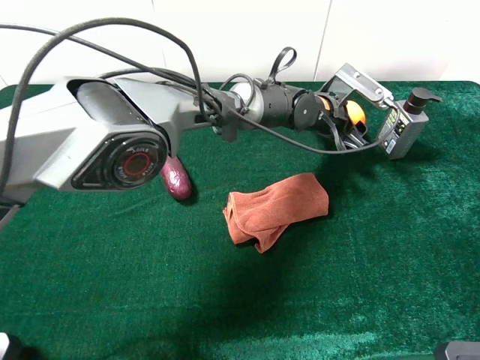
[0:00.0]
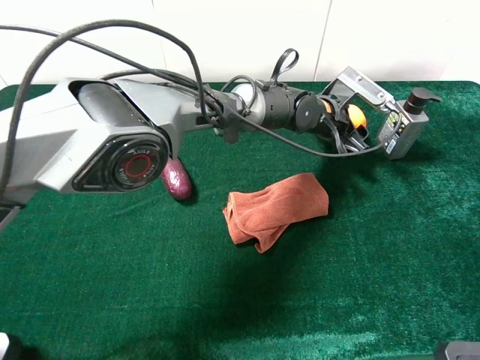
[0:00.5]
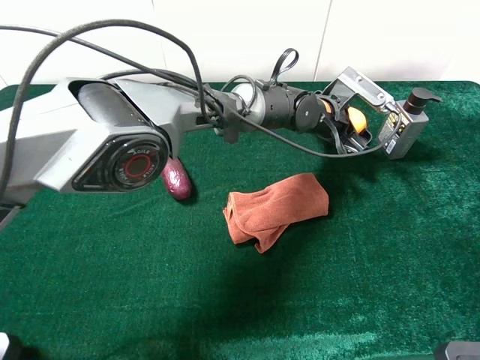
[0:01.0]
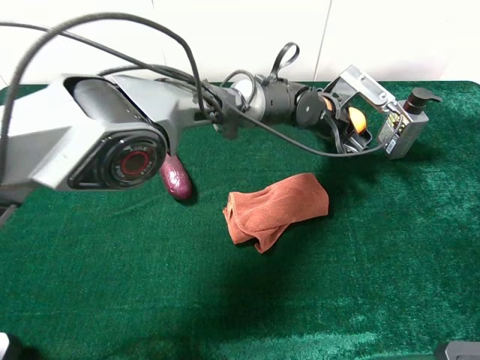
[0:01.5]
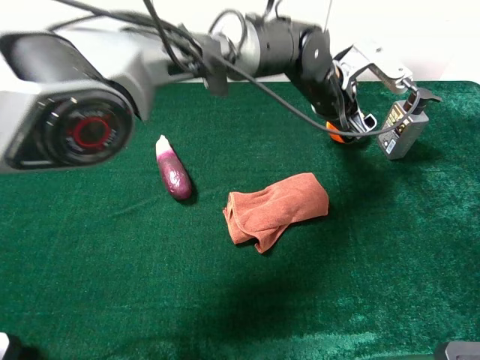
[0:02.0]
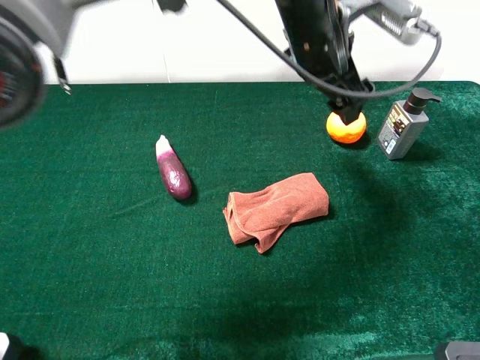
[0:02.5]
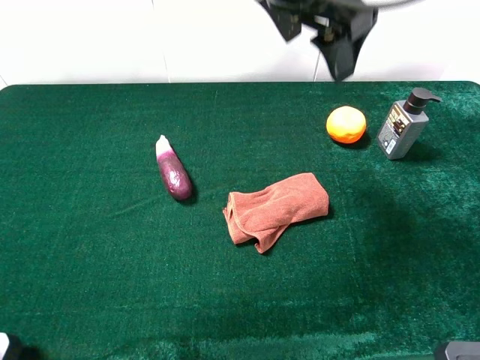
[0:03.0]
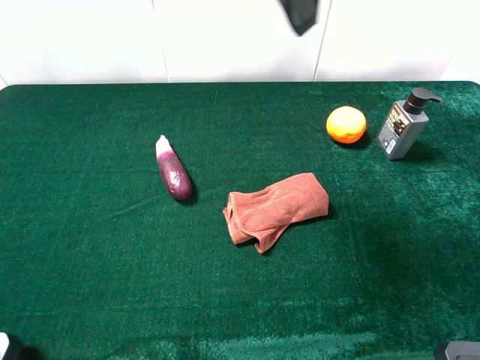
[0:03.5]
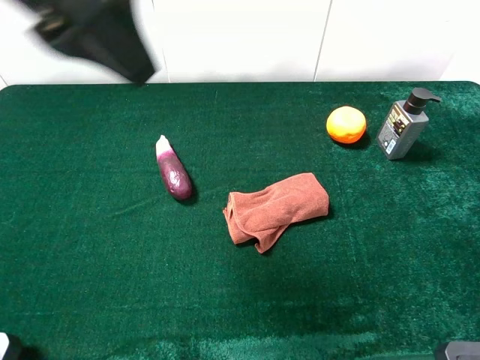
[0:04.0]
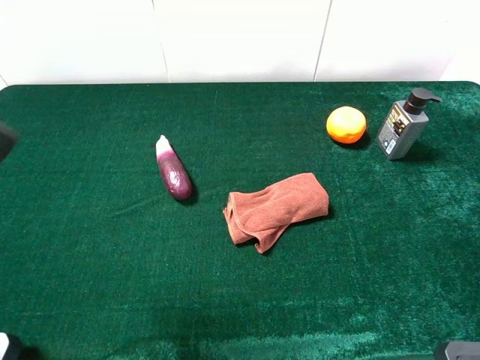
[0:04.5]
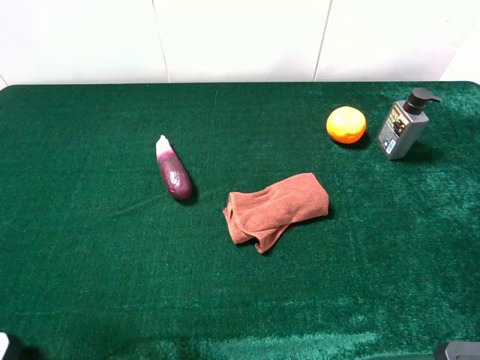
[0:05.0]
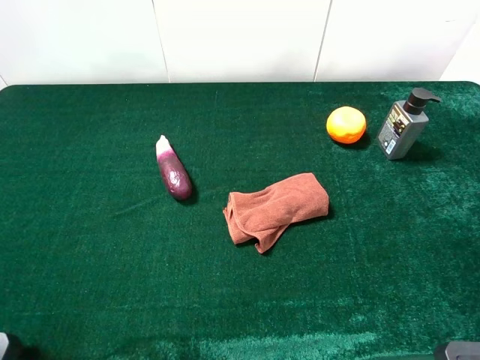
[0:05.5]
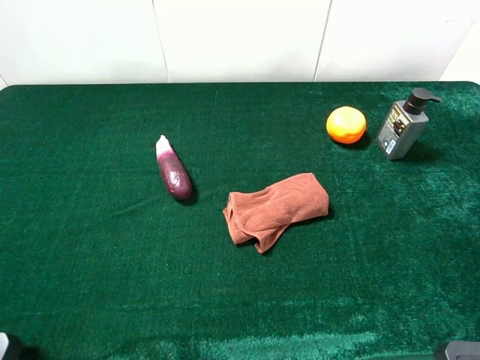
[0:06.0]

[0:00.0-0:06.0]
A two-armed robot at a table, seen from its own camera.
Task of the whole recording: the gripper move the object.
0:00.0 to 0:02.0: The left gripper travels upward by approximately 10 cm, and opens up.
0:02.0 to 0:04.0: The left gripper travels to the left, upward and backward by about 40 cm.
0:04.0 to 0:06.0: The left gripper shifts approximately 25 cm backward, to the left and downward.

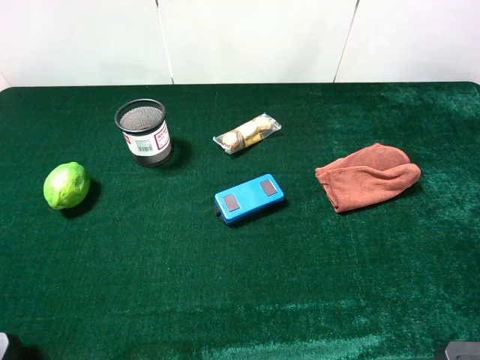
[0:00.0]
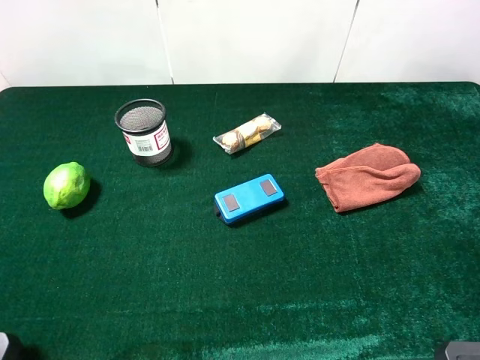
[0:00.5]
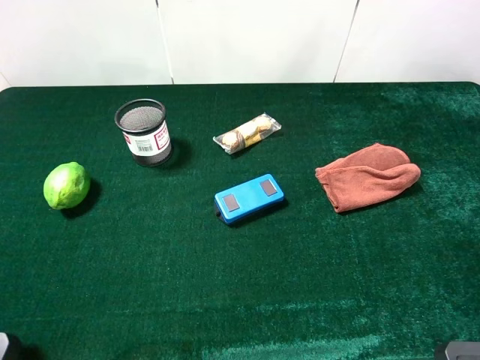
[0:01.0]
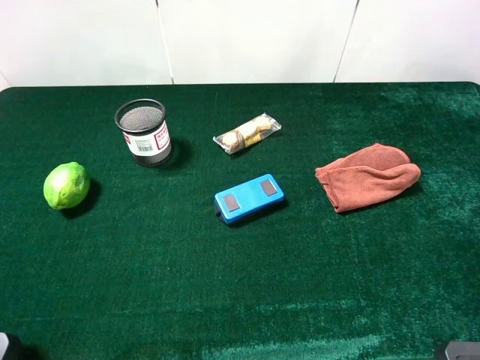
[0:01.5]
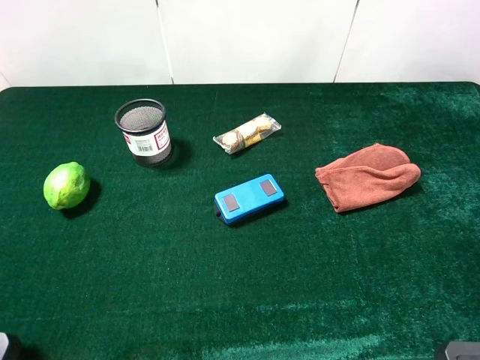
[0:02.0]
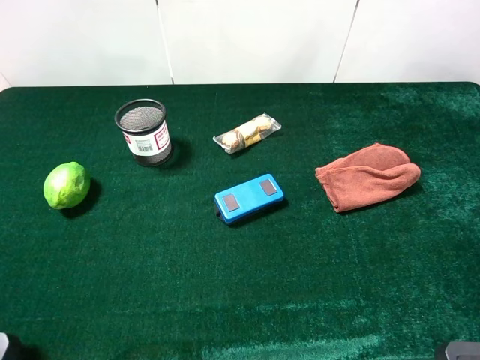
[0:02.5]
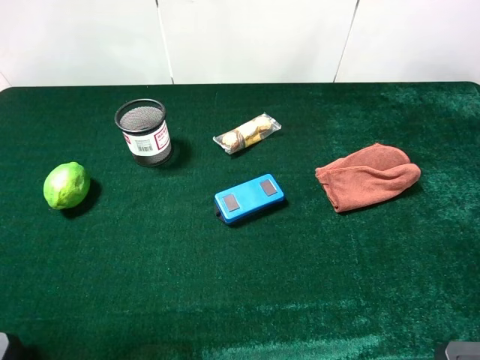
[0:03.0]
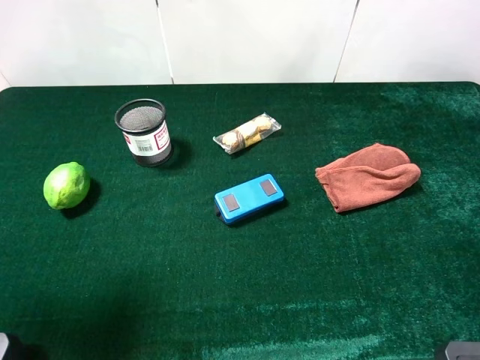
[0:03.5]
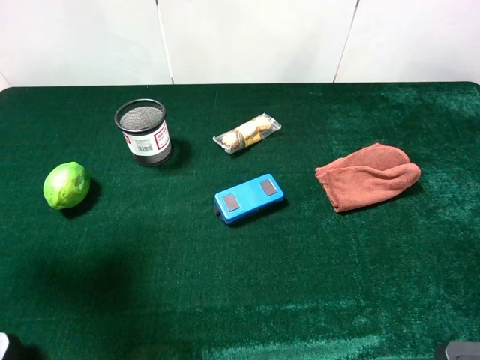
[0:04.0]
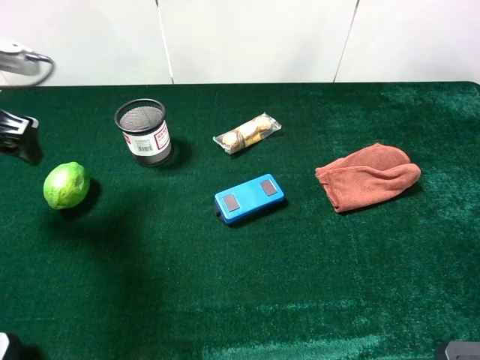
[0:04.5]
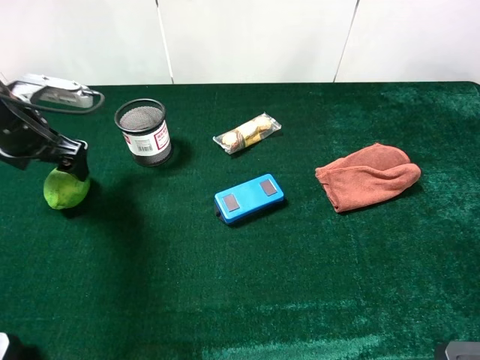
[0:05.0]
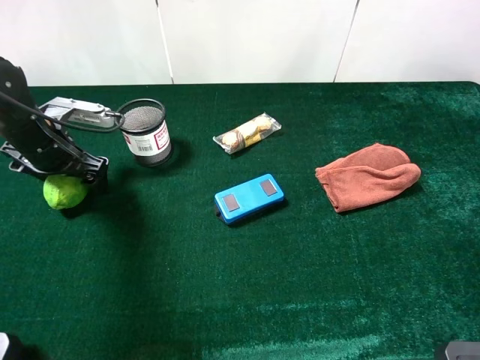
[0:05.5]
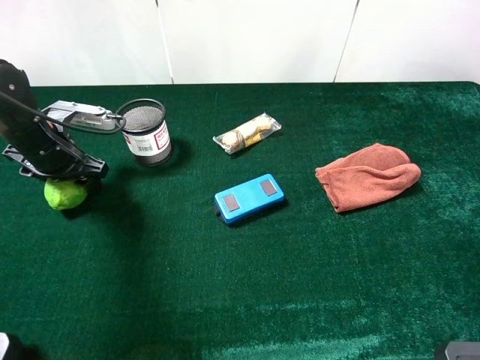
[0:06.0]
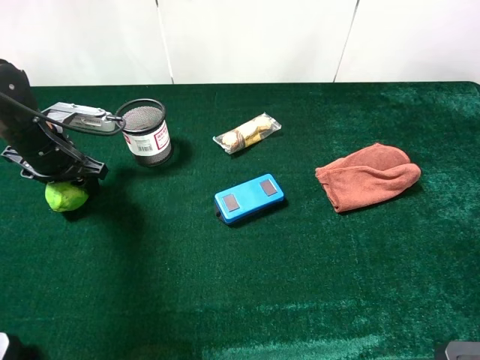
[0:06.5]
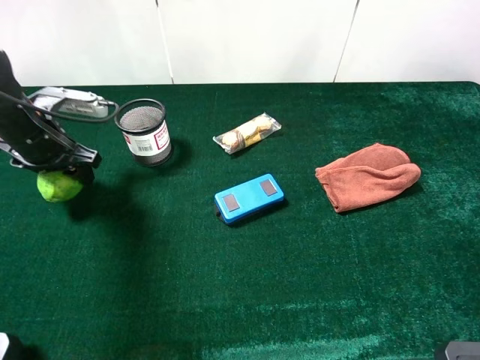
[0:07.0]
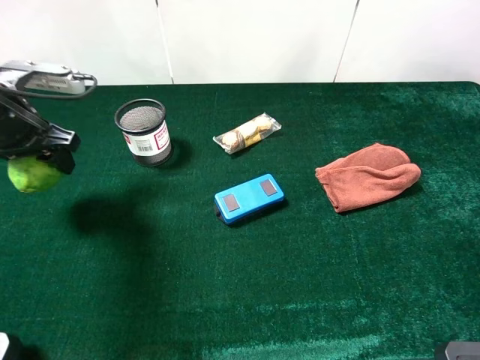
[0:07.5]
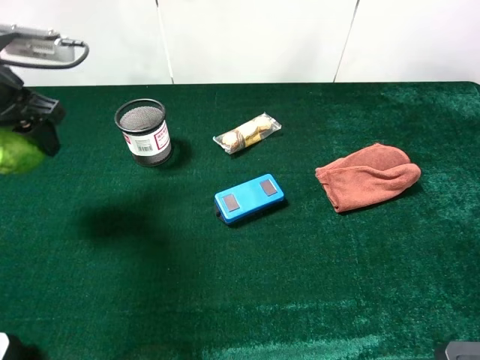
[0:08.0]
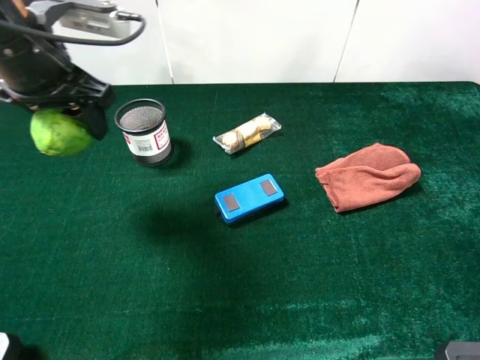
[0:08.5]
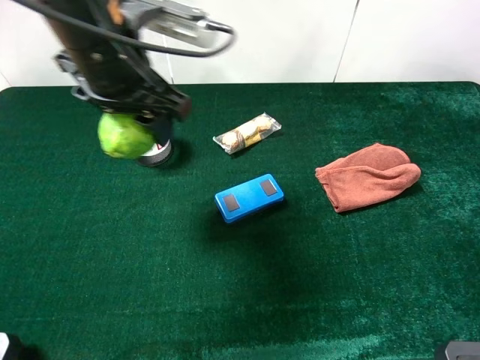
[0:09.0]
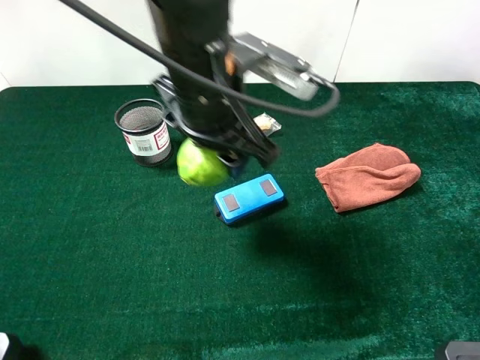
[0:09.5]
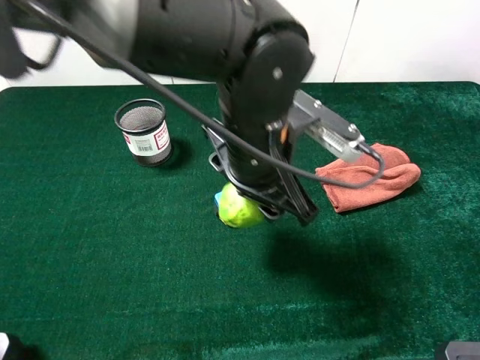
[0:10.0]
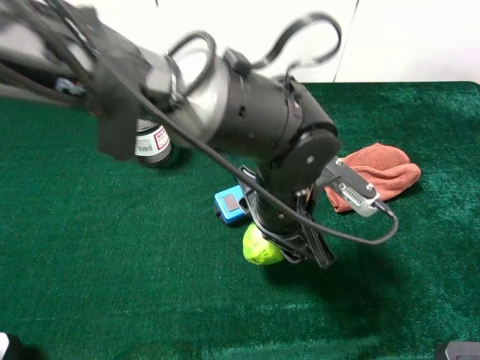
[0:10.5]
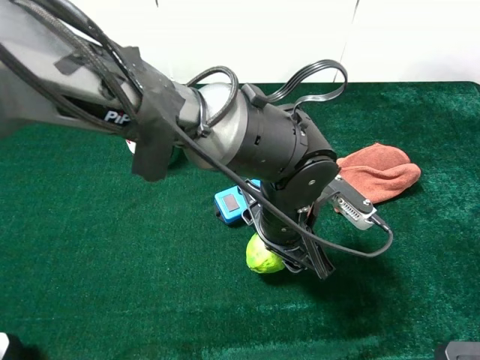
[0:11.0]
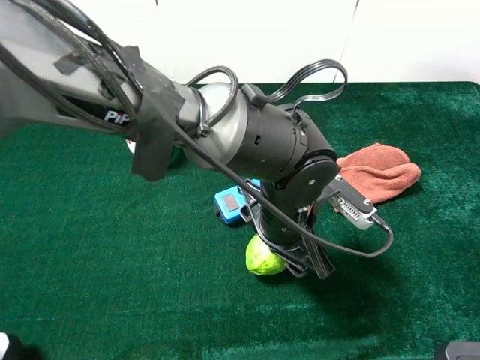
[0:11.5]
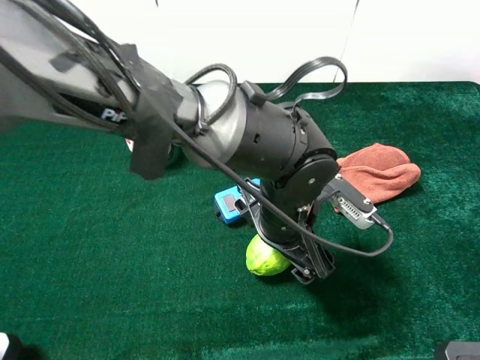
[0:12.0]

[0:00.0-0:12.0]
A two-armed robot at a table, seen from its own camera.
Task of the whole recording: the gripper move the object.
Step, 0:00.0 to 0:06.0: Grasp the green lemon with the left gripper.
0:00.0 to 0:02.0: Both grippers stay about where they are.
0:02.0 to 0:04.0: The left gripper shifts roughly 20 cm forward.
0:04.0 to 0:06.0: The left gripper goes some 20 cm downward and forward, and closes.
0:06.0 to 0:08.0: The left gripper travels upward by about 15 cm.
0:08.0 to 0:10.0: The left gripper is displaced to the right by about 30 cm.
0:10.0 to 0:12.0: The left gripper is displaced downward by roughly 5 cm, and opens.

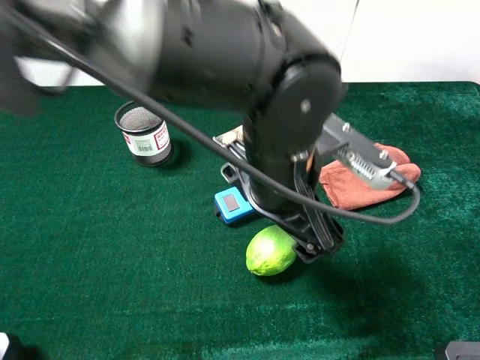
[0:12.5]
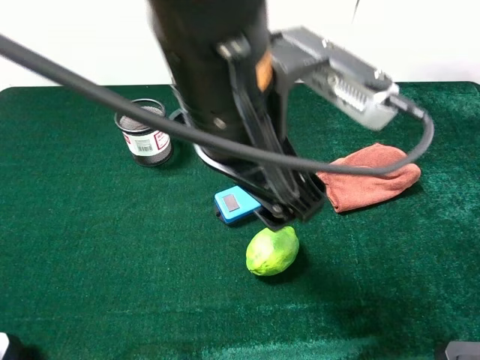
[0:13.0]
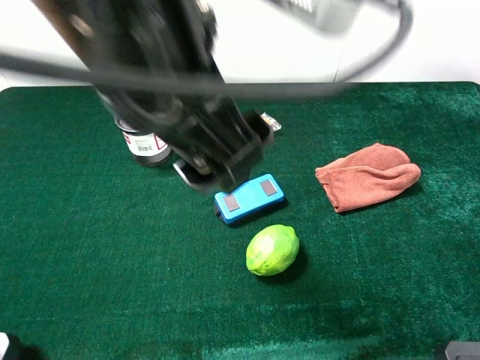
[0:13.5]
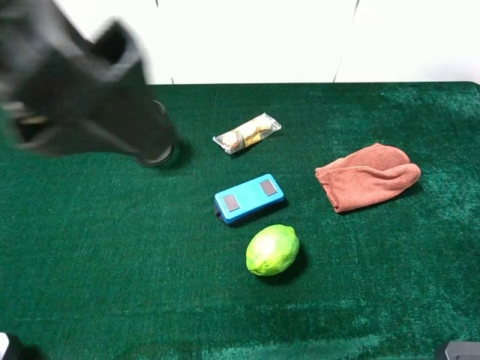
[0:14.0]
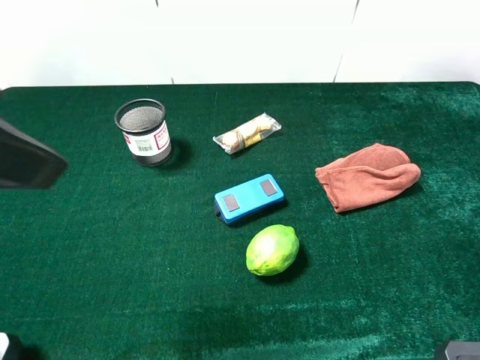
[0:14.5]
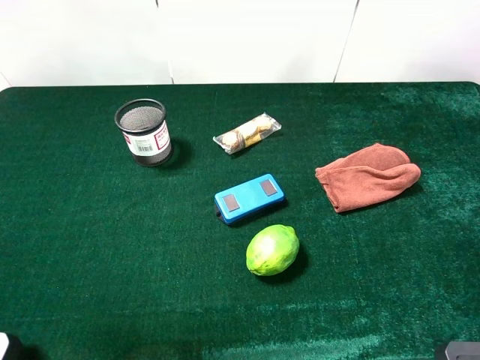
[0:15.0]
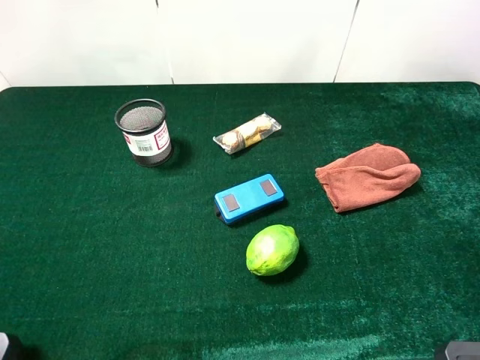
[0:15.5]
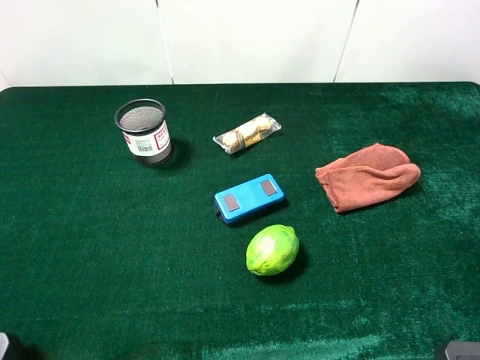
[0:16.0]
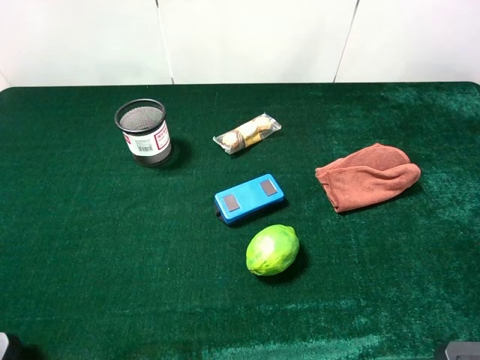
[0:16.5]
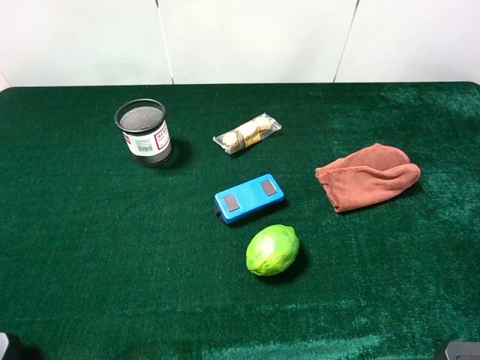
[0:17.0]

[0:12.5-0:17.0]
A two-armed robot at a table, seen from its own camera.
Task of the whole recording: the gripper move the object.
0:12.5 to 0:14.5: The left gripper heads to the left and upward, covering approximately 30 cm.
0:14.5 to 0:17.0: The left gripper shifts some 20 cm to the left, backward and downward.
